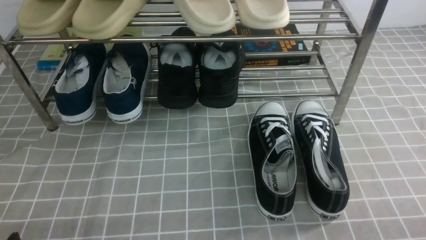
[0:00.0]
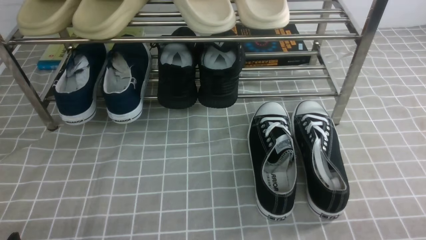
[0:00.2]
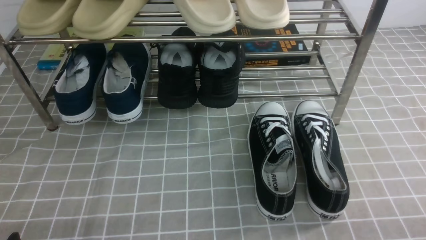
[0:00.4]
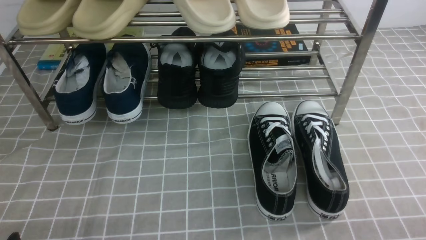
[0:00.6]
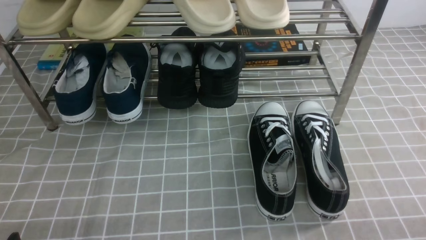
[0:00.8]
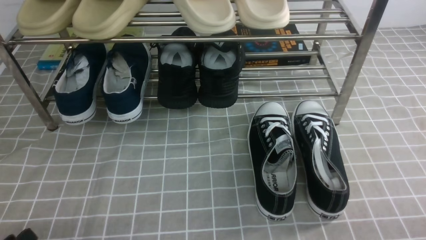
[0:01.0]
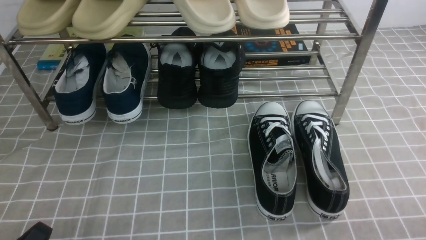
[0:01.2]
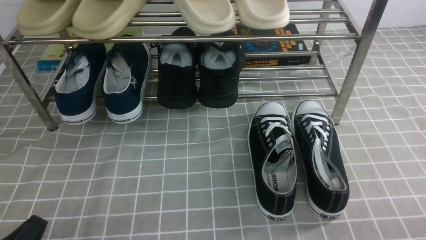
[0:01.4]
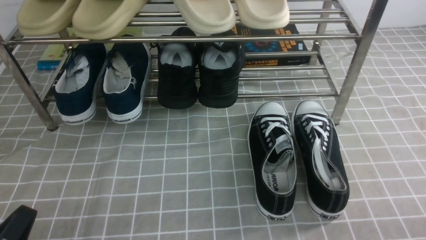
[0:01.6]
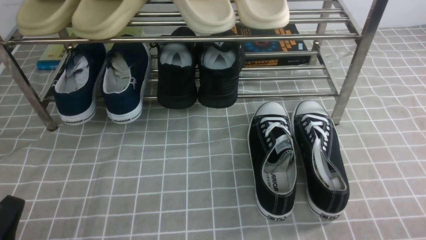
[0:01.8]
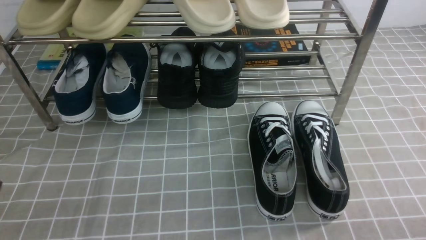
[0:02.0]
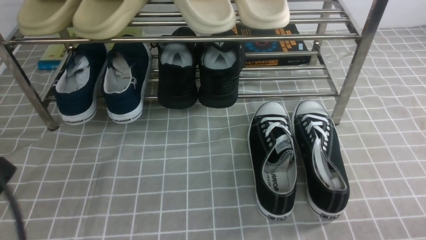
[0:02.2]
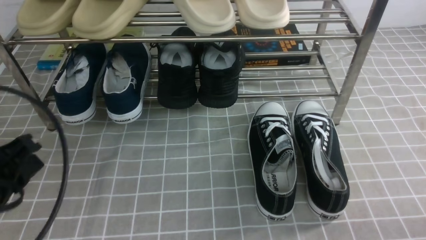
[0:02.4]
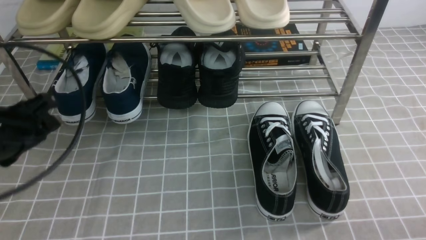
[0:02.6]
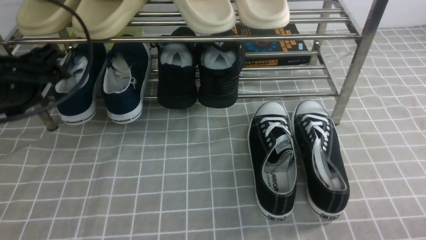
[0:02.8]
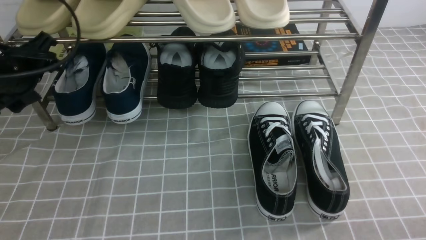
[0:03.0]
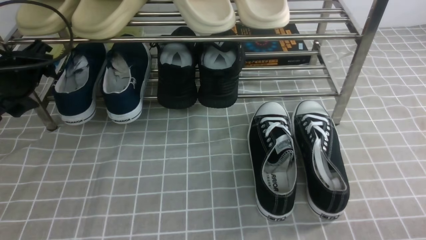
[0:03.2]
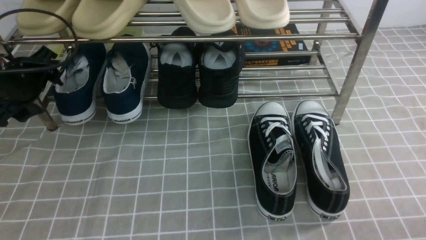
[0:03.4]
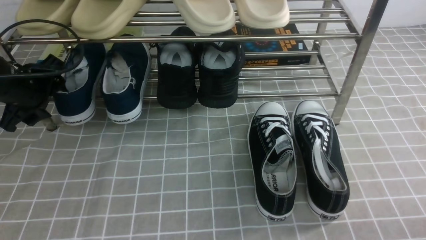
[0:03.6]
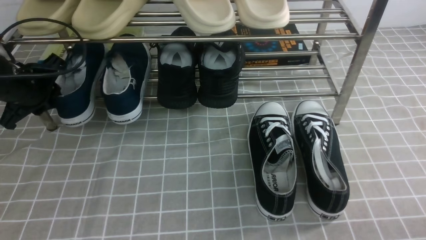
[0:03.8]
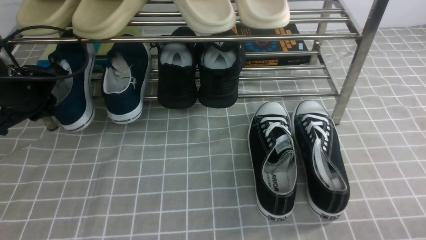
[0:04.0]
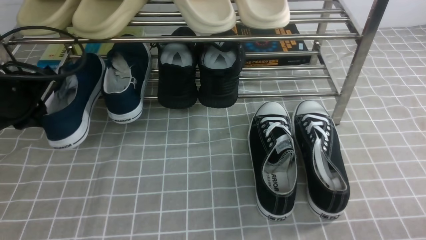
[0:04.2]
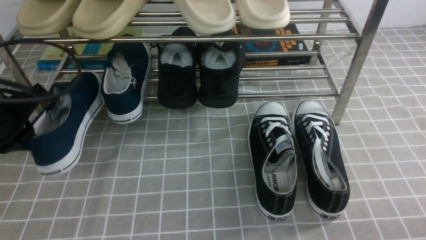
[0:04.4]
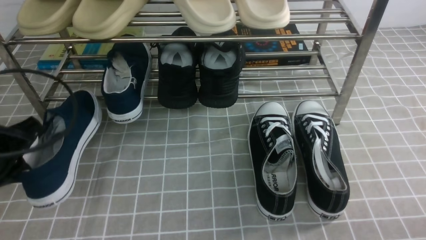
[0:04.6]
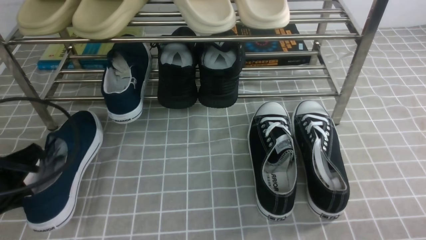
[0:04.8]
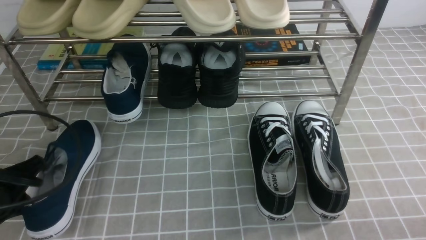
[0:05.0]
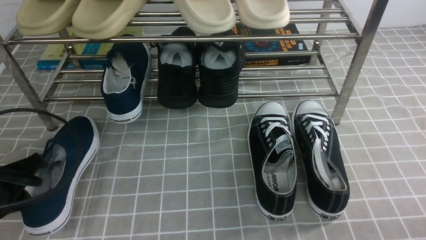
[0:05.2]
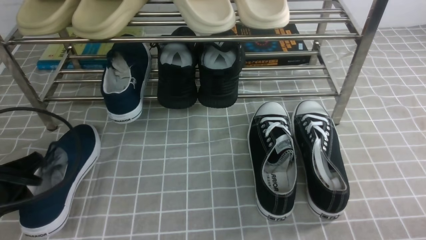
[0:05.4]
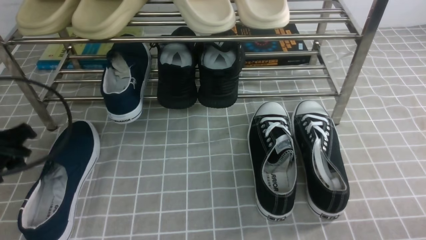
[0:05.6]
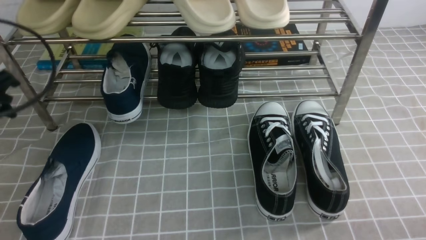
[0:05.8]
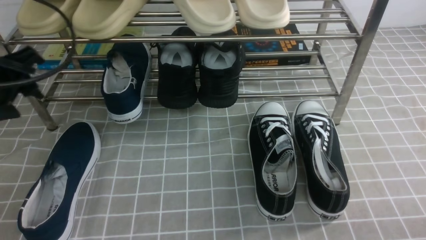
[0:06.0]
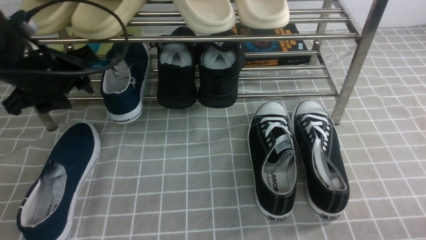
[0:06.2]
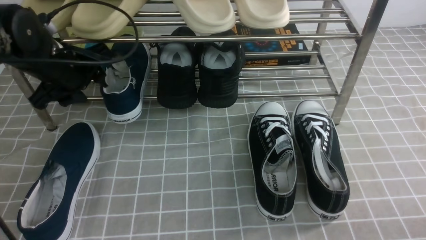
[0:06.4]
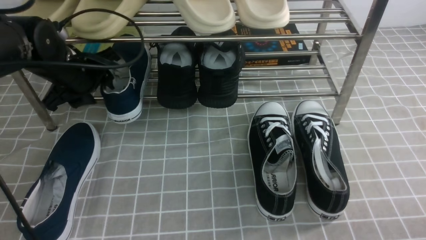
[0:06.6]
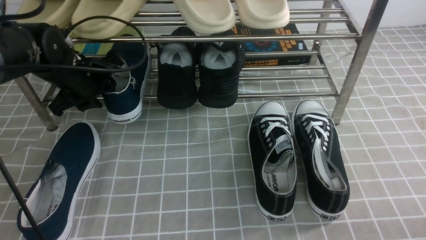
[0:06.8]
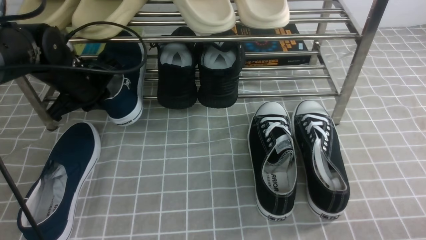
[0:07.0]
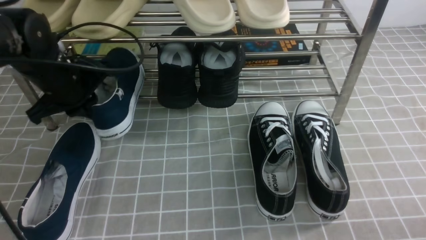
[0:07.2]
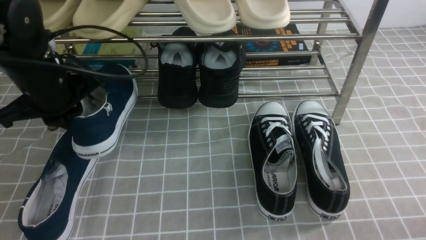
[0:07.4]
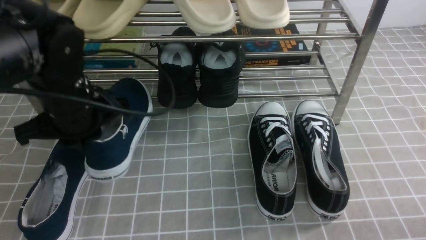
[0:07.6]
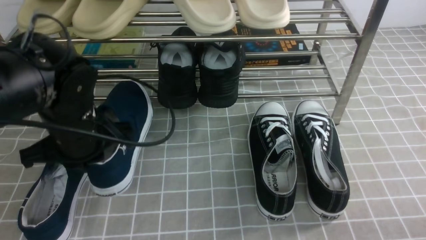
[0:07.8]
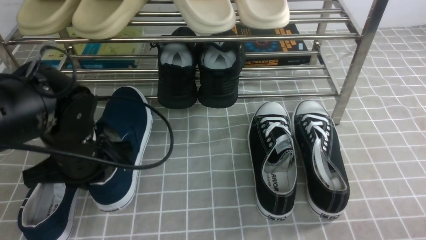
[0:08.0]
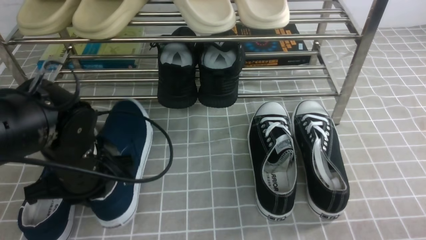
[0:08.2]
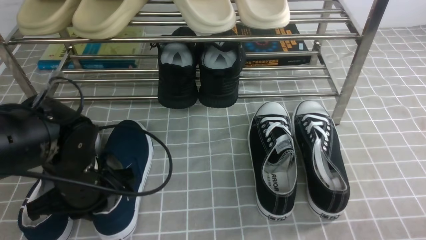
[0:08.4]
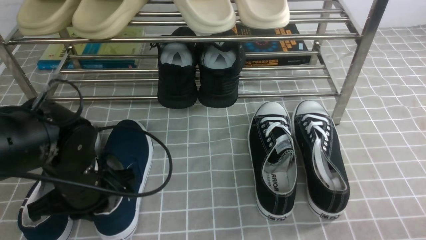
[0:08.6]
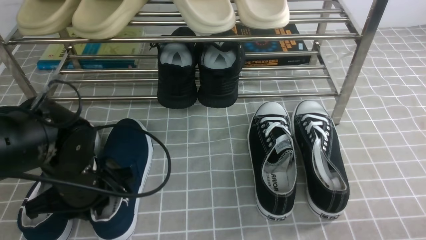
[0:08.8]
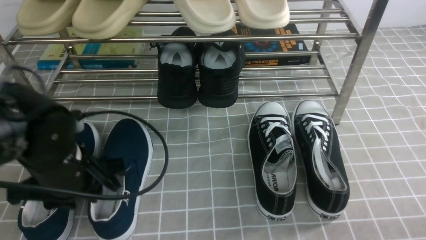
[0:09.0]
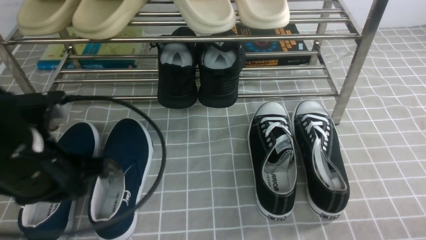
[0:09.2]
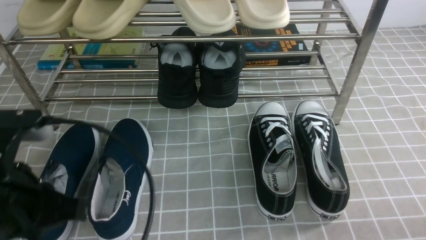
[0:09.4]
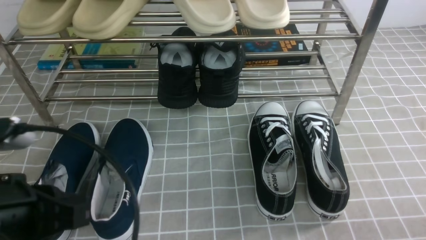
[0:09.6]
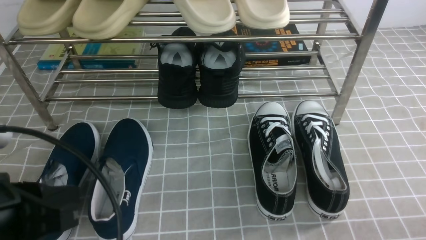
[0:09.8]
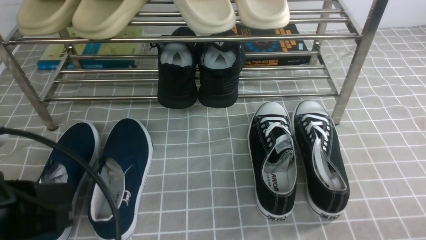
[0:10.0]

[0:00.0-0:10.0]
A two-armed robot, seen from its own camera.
Step, 0:00.0 to 0:03.8: use the left arm to clamp a shoe on the left side of the shoe rack.
Step, 0:04.2 to 0:05.6: Use your left arm to remove the clamped shoe from the shoe rack and put it down.
Step, 0:05.8 to 0:07.2: use the left arm to clamp a shoe on the left side of the shoe rack.
Step, 0:07.4 to 0:09.0: Use your left arm to remove the clamped shoe from the shoe rack and put it down.
0:01.4 to 0:02.8: The left gripper moves forward and upward, roughly 25 cm, and opens up.
0:02.8 to 0:04.2: The left gripper closes.
0:04.2 to 0:05.8: The left gripper goes roughly 5 cm backward, and opens.
0:05.8 to 0:07.2: The left gripper goes roughly 10 cm forward and to the right, and closes up.
0:07.2 to 0:08.6: The left gripper heads backward and downward, covering approximately 15 cm.
0:08.6 to 0:10.0: The left gripper goes roughly 15 cm backward and upward.

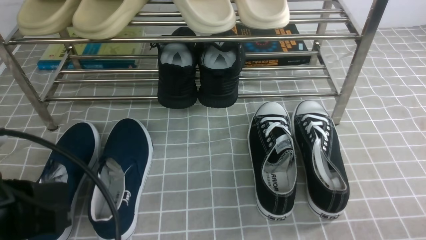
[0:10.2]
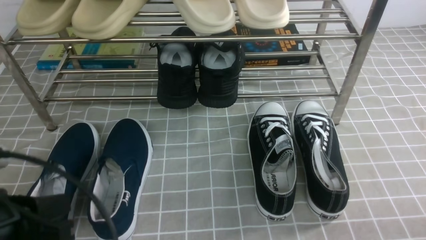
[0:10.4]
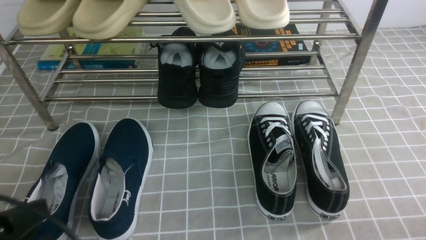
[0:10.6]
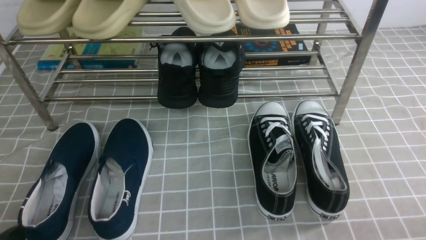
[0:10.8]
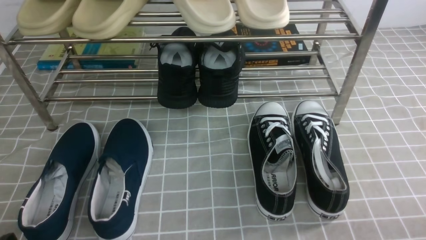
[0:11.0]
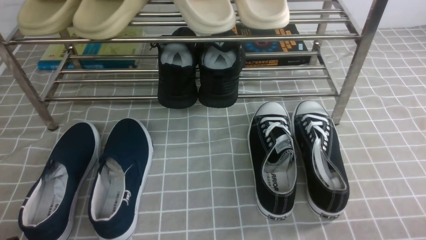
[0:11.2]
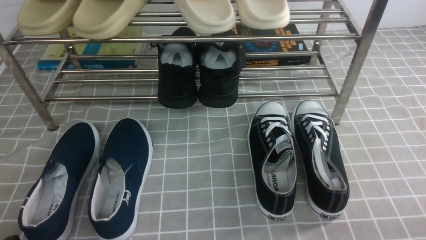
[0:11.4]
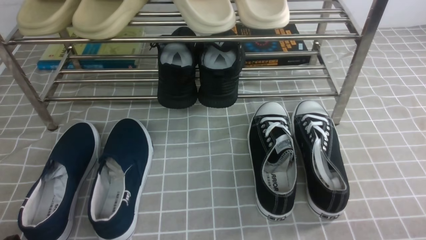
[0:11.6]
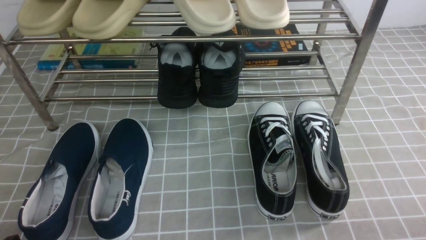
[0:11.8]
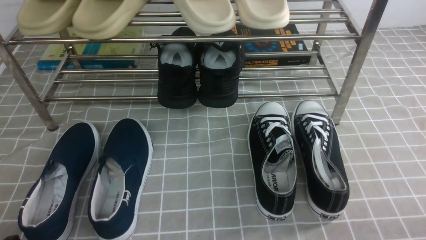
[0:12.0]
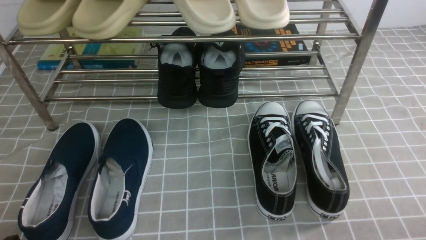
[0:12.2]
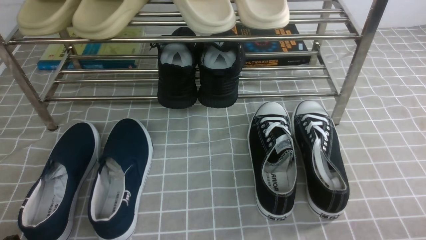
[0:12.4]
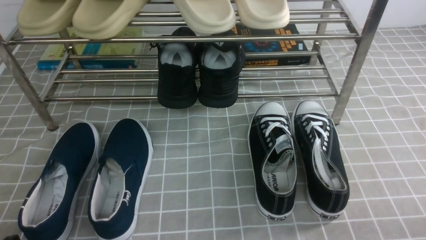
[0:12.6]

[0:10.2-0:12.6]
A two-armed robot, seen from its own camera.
0:10.2 to 0:11.4: The left gripper heads downward and backward, covering some 15 cm.
0:11.4 to 0:12.6: The two grippers keep their place.
